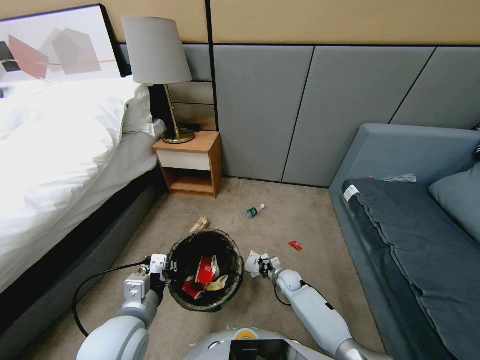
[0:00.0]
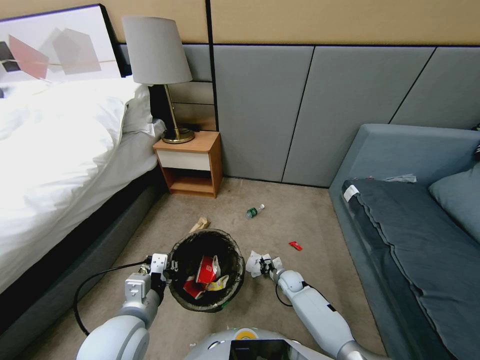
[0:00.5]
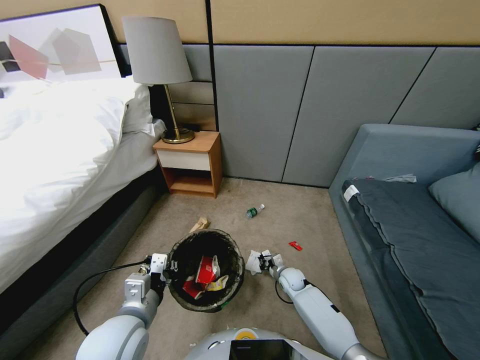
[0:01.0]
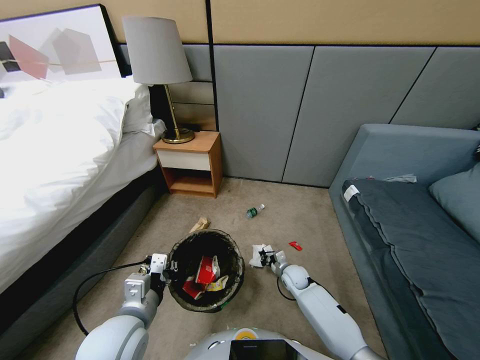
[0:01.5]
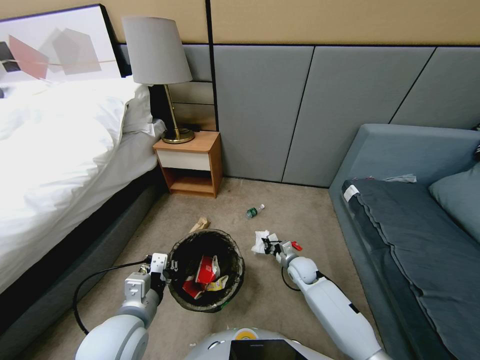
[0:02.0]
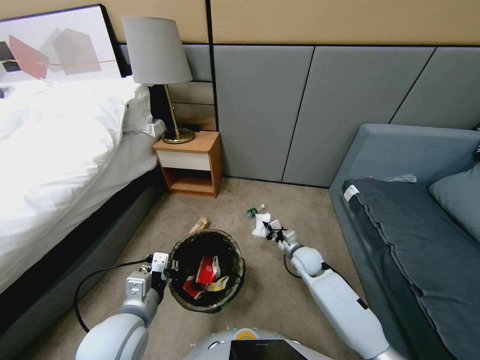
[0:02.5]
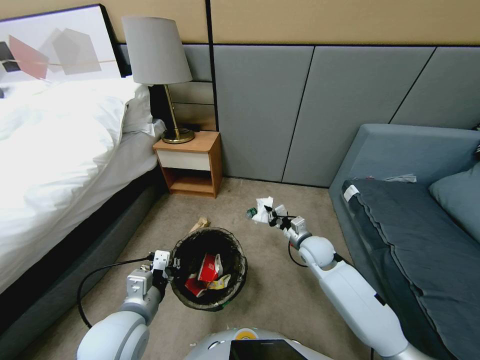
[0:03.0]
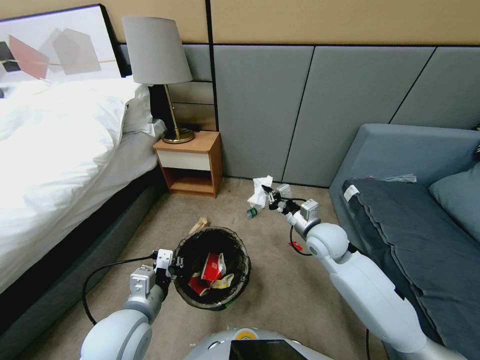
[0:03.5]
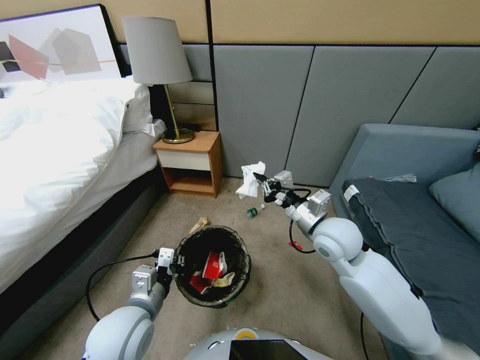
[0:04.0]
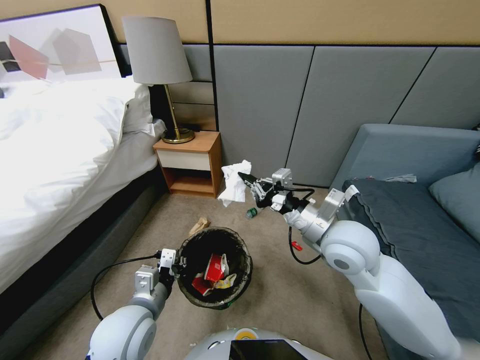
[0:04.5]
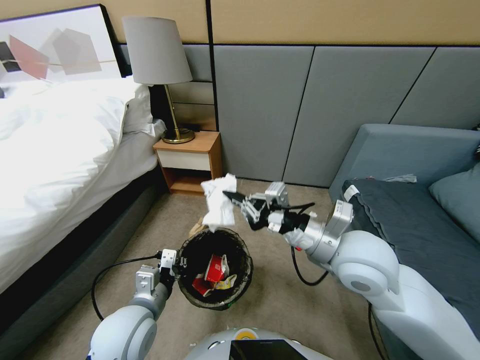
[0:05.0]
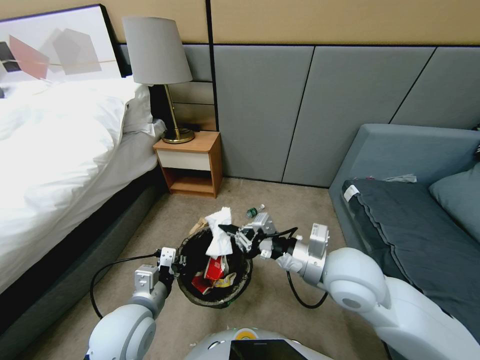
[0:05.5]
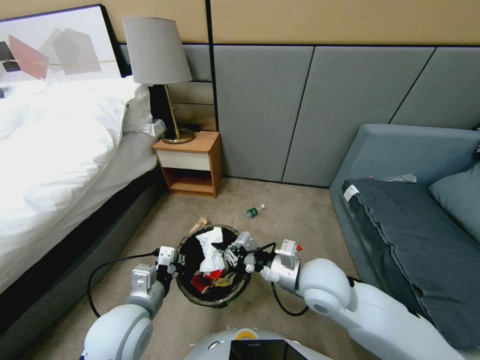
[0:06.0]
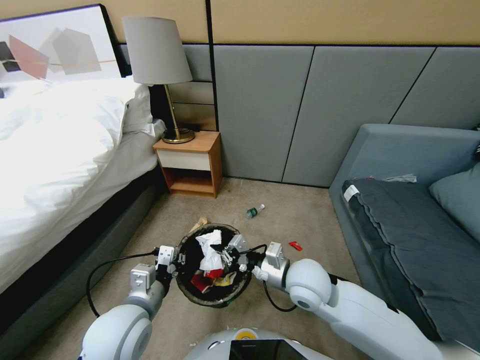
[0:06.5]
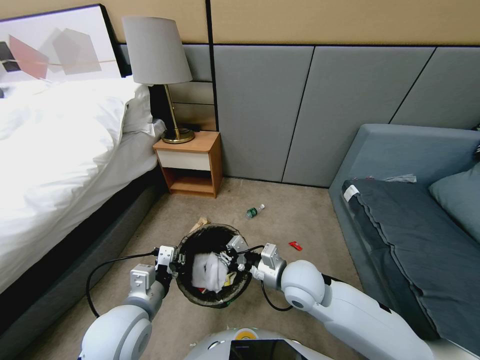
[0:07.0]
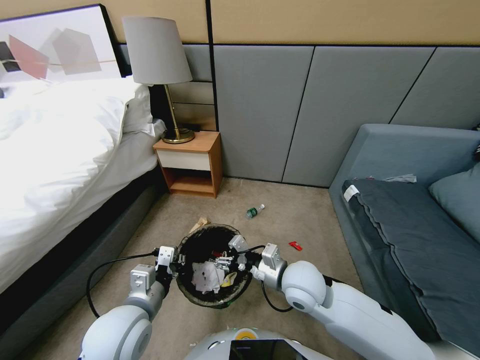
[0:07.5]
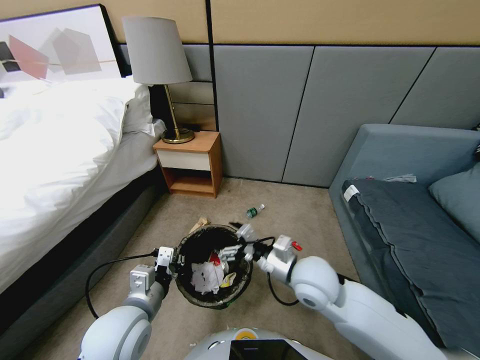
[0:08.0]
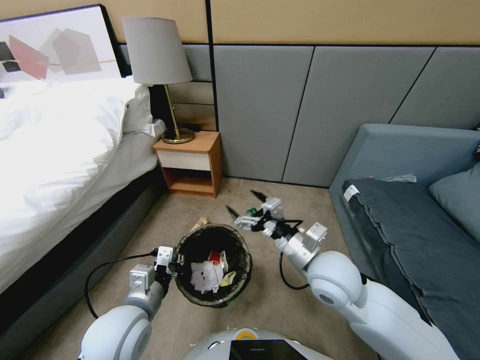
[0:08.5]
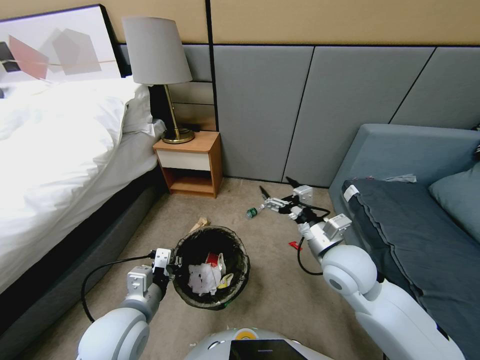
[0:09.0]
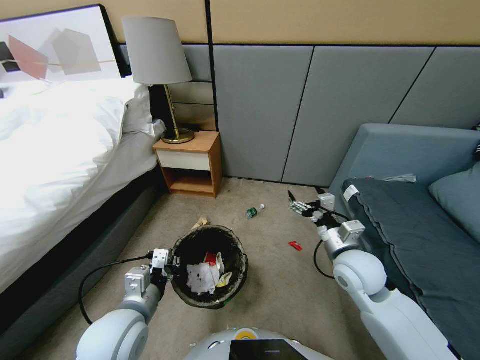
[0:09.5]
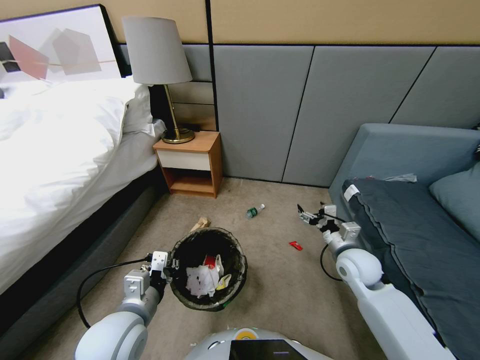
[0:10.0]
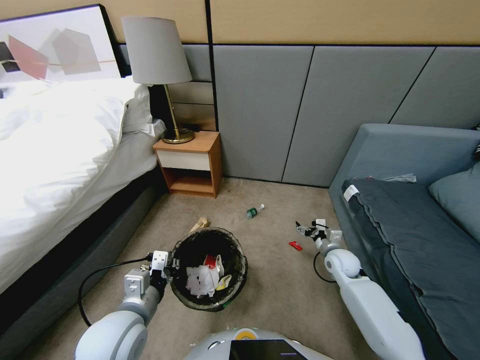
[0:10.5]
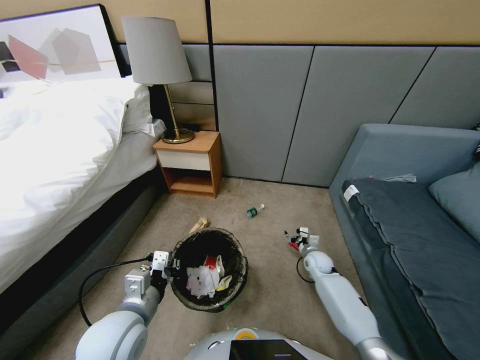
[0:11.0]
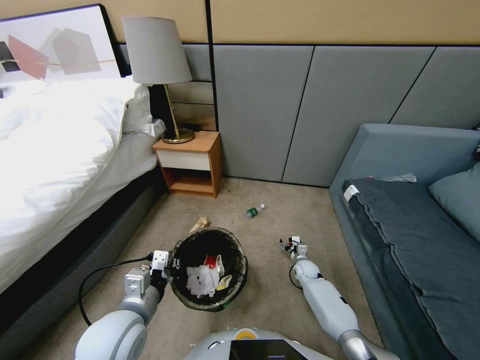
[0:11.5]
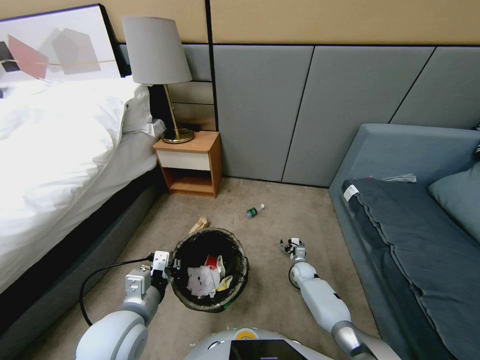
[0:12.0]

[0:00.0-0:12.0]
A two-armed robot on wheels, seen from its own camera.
Task of the whole recording: Pick up the trash bin, then pick up the garbage from the floor and place it into the trash bin.
0.0 to 2.0 s: The right gripper moves upward, roughly 10 cm.
2.0 to 4.0 s: The right gripper heads upward, covering about 30 cm.
4.0 to 6.0 s: The right gripper shifts some 10 cm backward and downward.
6.0 to 8.0 s: The right gripper opens up.
8.0 to 10.0 s: The right gripper moves to the right, about 15 cm.
10.0 to 12.0 s: The right gripper moves downward, approximately 35 cm.

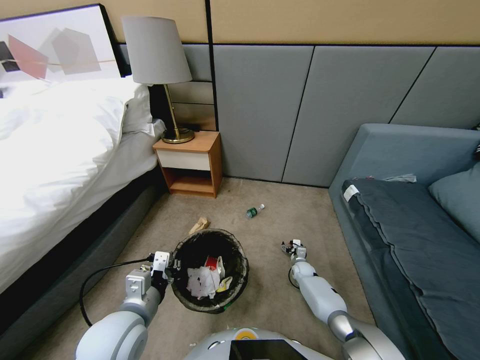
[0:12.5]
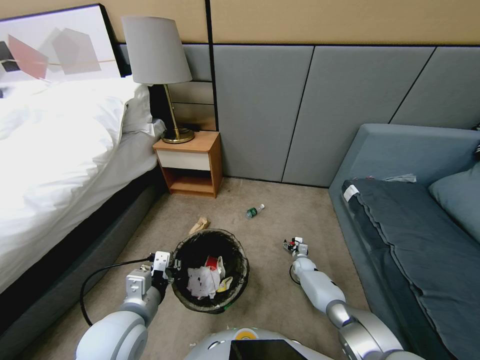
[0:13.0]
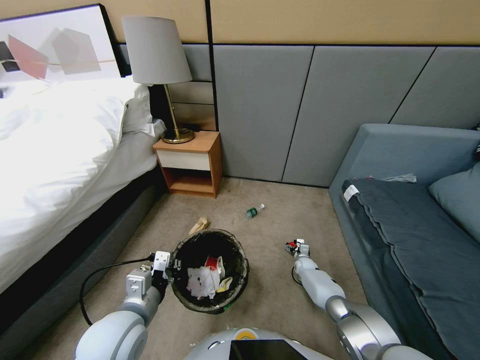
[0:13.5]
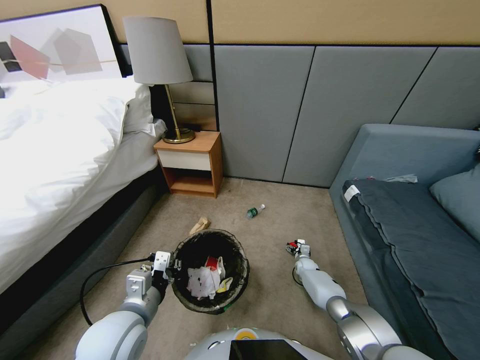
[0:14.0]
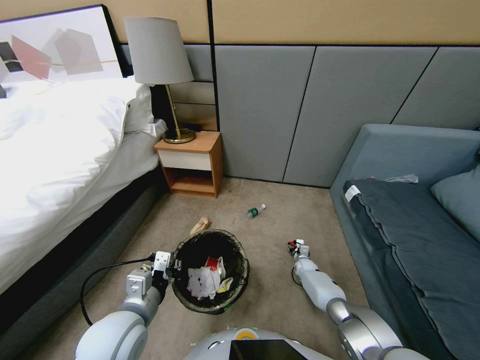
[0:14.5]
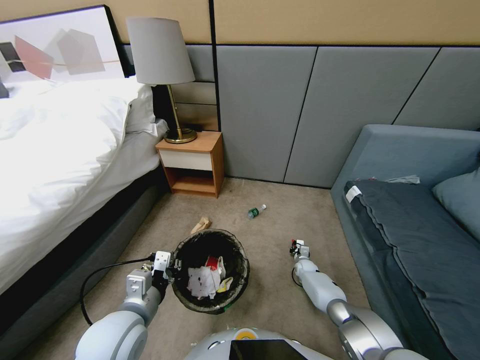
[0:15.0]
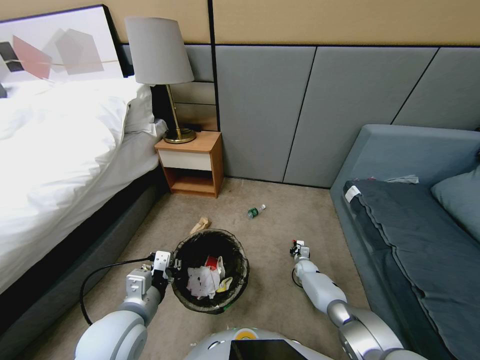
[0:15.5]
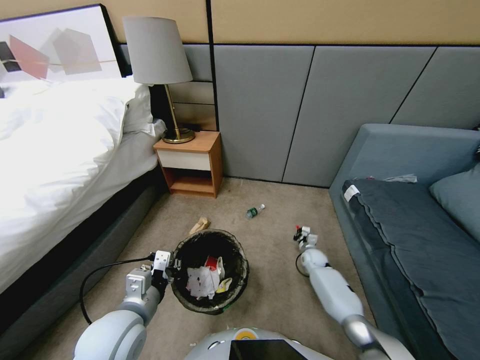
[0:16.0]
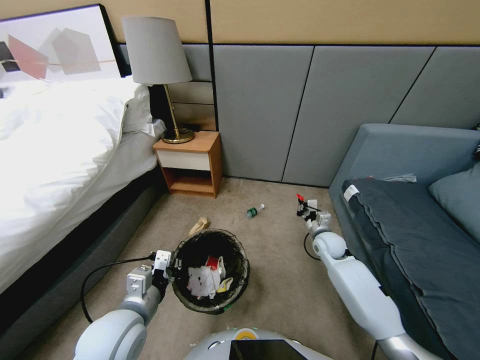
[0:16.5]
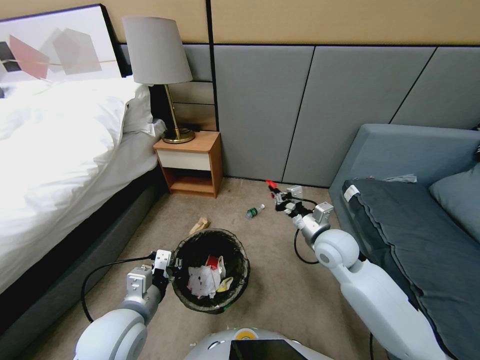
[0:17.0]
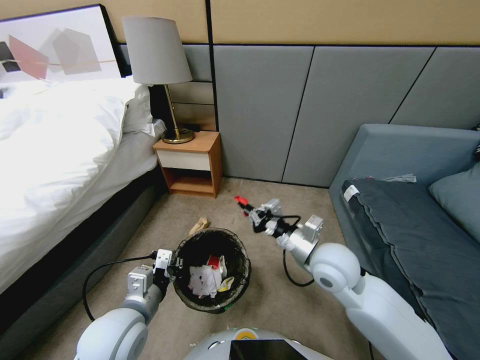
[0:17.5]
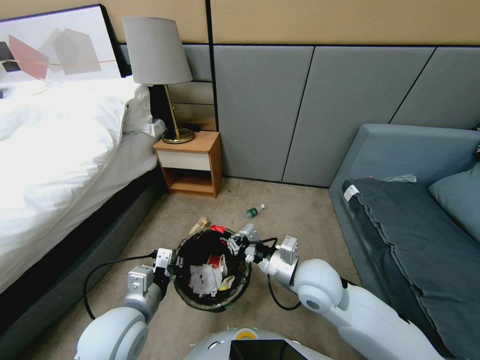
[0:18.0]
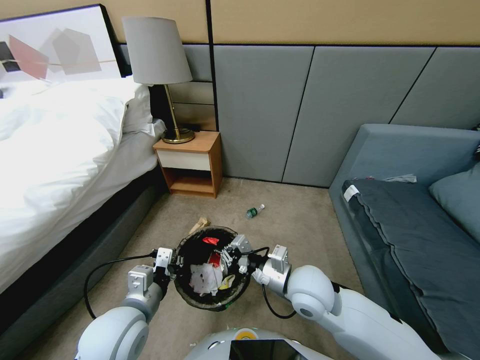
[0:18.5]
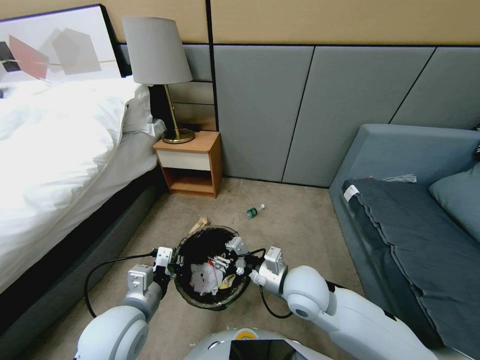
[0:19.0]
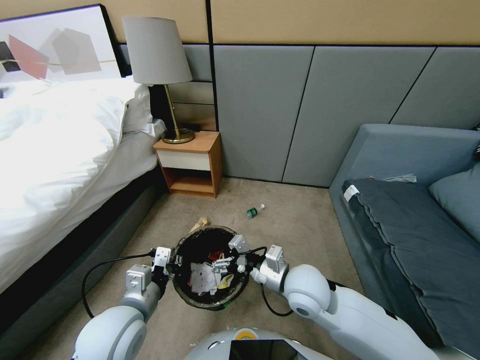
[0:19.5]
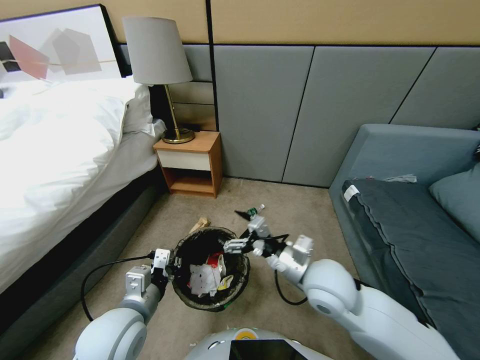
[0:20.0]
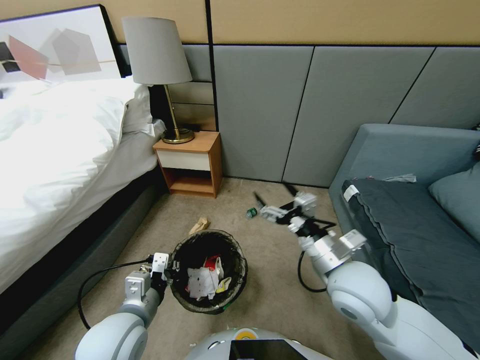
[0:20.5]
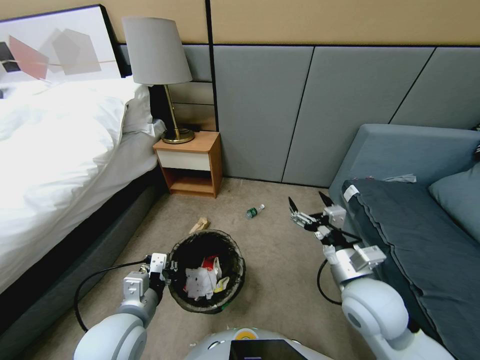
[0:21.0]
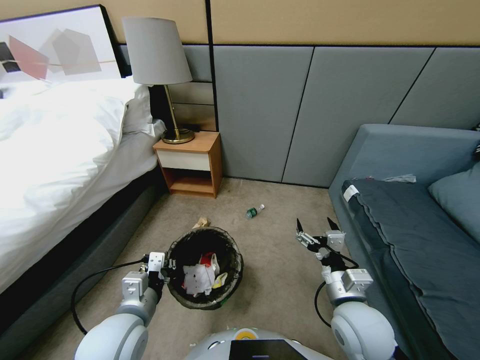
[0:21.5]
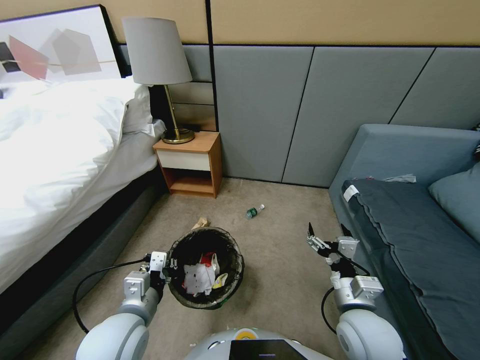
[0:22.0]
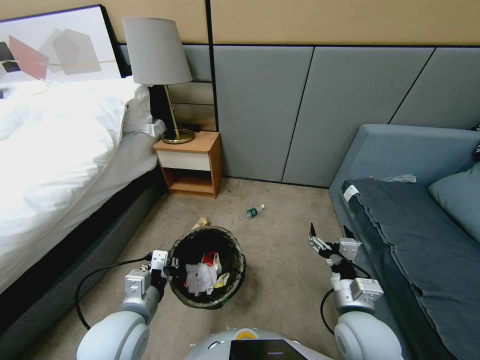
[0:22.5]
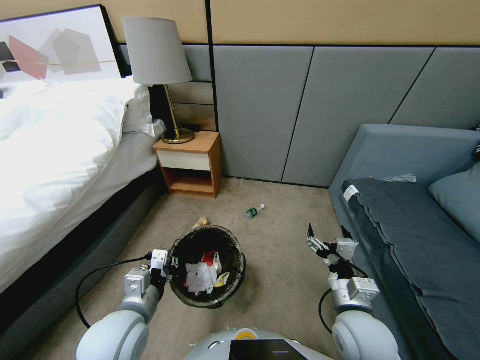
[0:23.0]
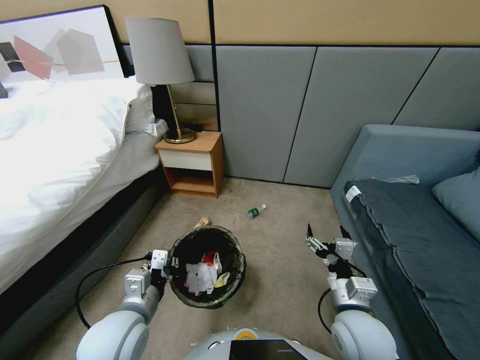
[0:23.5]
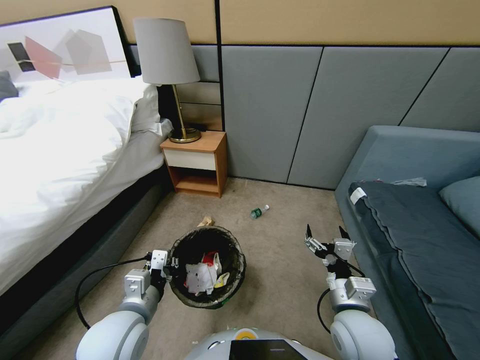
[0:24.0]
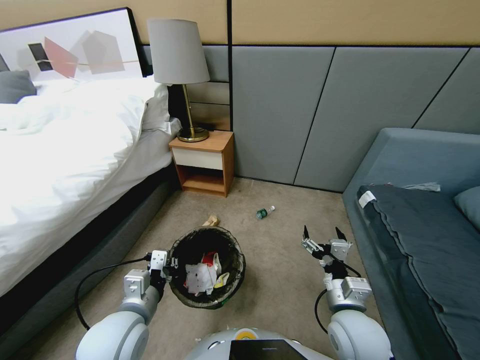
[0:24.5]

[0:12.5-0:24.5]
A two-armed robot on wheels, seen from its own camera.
Task of the whole recording: Pick up the trash bin, then pick up the garbage from the floor and place it into the trash bin.
12.5 to 14.5 s: The right gripper closes up.
14.5 to 16.5 s: The right gripper moves upward, some 30 cm, and closes up.
16.5 to 18.5 s: The right gripper moves backward, to the left and upward, roughly 20 cm.
18.5 to 20.5 s: The right gripper travels to the right and upward by about 10 cm, and opens up.
20.5 to 22.5 s: The right gripper is displaced downward and backward by about 10 cm.

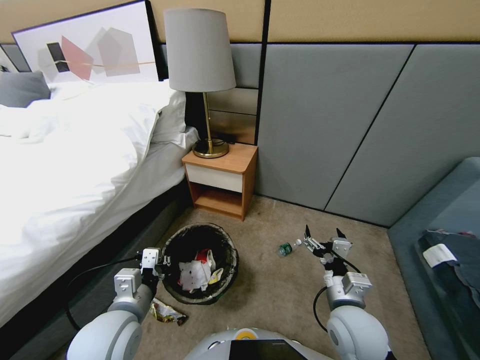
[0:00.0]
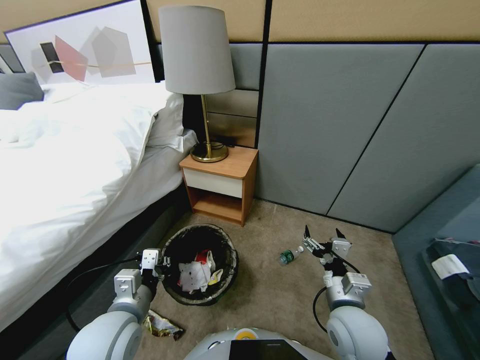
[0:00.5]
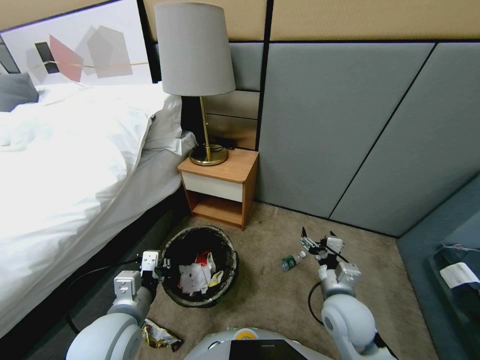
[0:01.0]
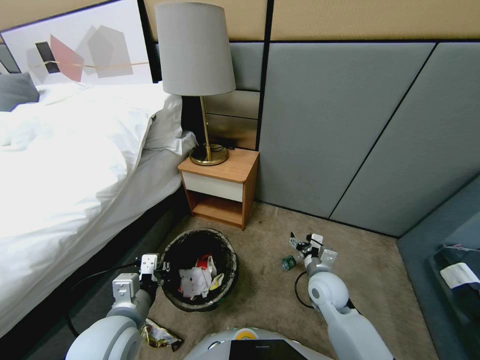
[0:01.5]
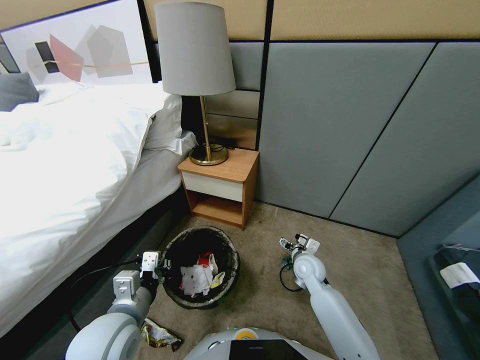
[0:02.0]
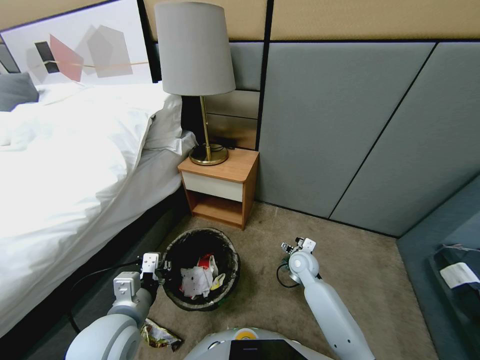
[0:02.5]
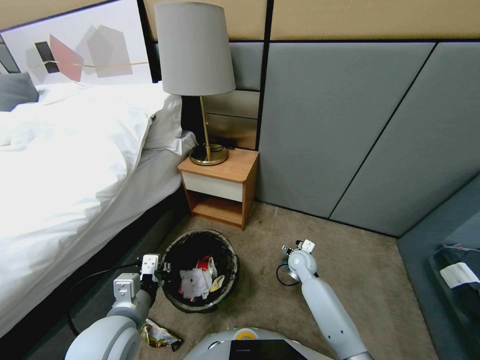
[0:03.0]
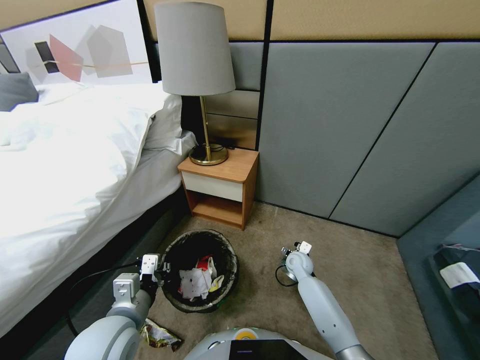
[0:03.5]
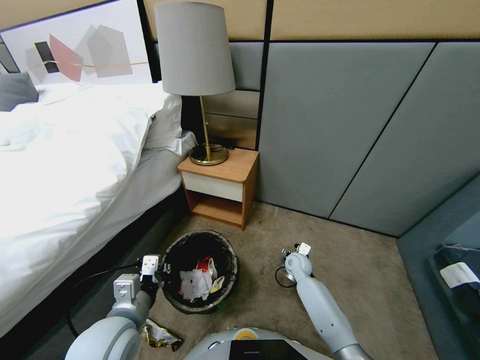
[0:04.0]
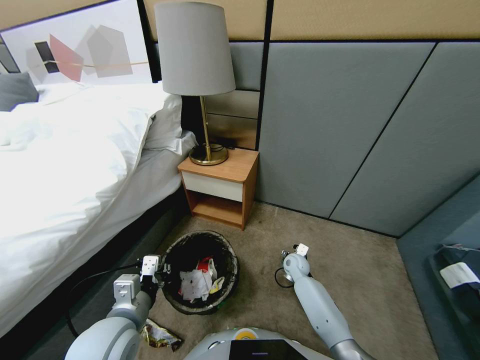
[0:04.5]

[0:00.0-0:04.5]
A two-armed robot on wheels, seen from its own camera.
Task of the whole recording: Pick up the trash bin, then pick up the garbage from the floor and place it into the trash bin.
0.0 to 2.0 s: The right gripper is displaced forward and downward by some 20 cm.
2.0 to 4.5 s: The right gripper heads downward, covering roughly 10 cm.
